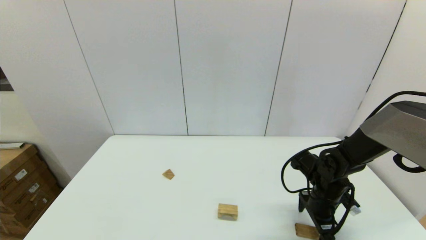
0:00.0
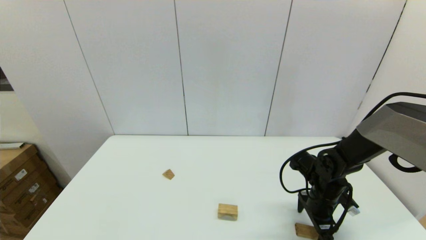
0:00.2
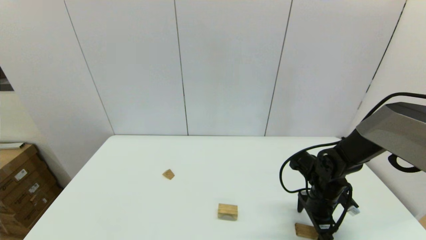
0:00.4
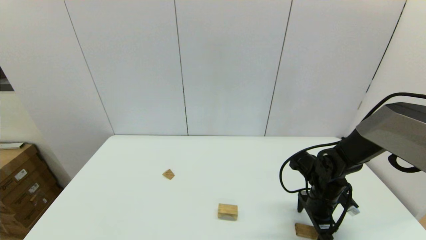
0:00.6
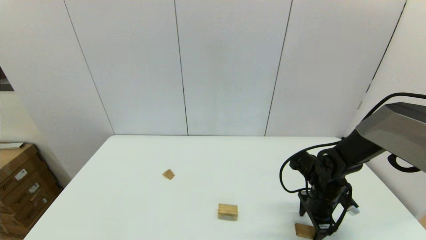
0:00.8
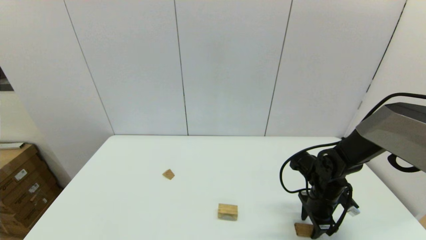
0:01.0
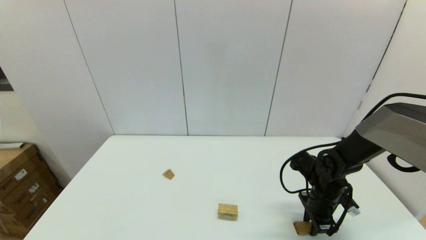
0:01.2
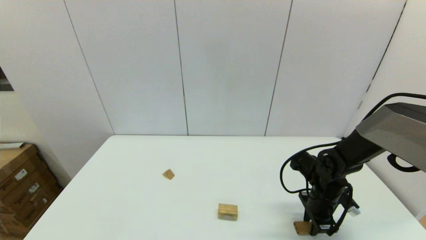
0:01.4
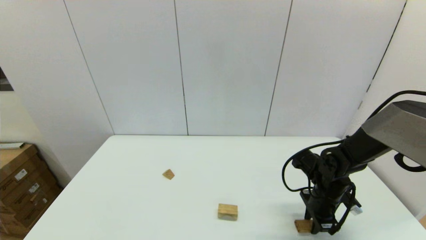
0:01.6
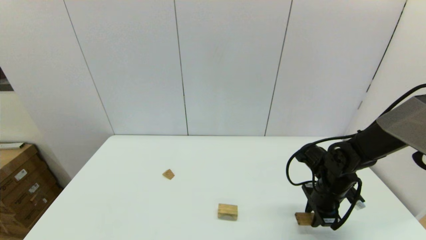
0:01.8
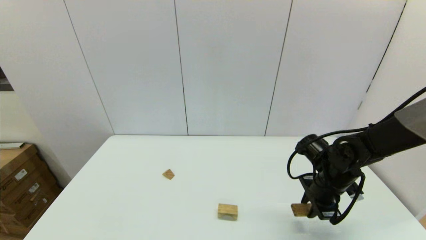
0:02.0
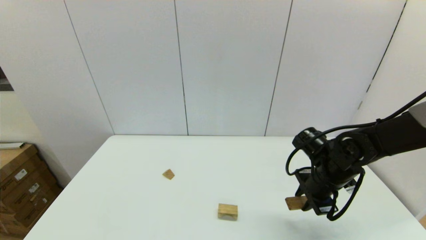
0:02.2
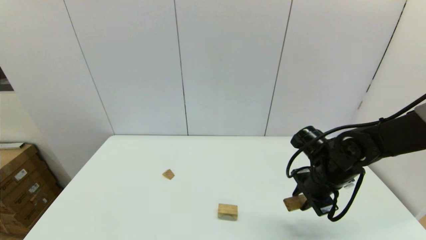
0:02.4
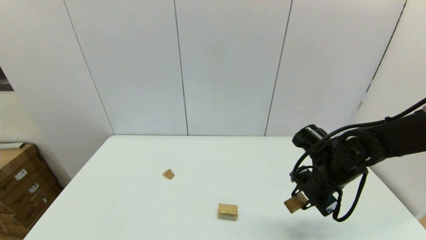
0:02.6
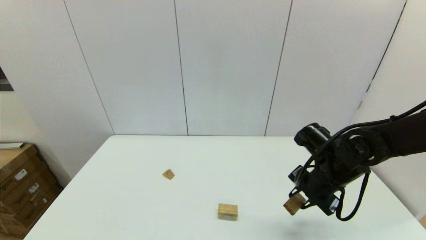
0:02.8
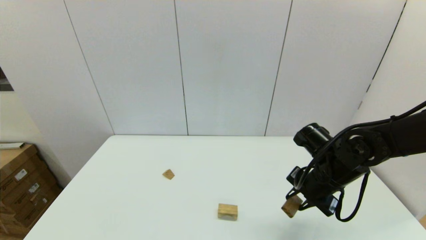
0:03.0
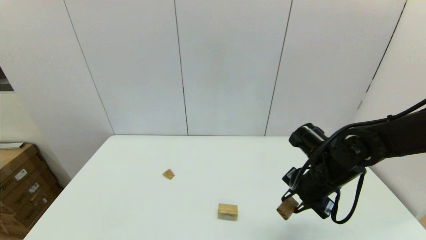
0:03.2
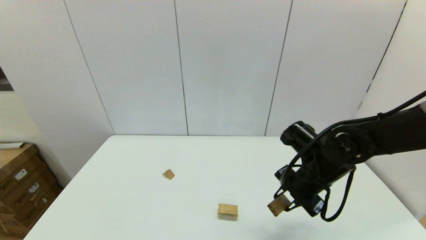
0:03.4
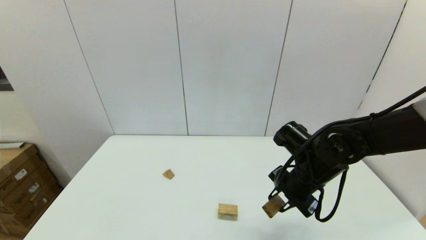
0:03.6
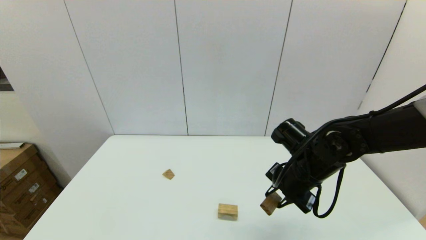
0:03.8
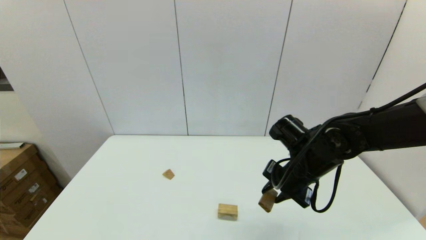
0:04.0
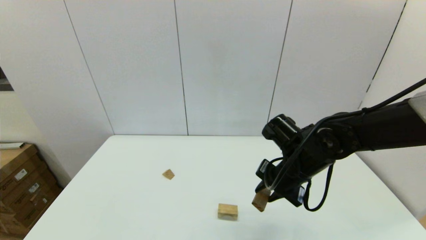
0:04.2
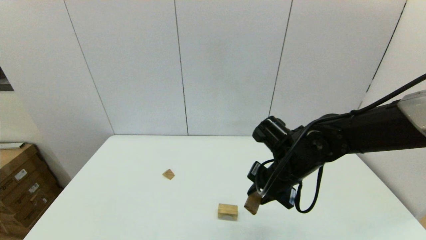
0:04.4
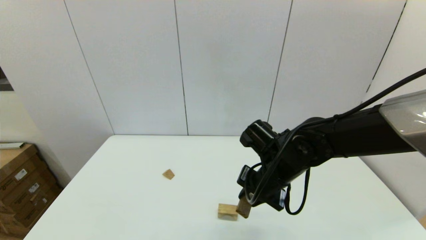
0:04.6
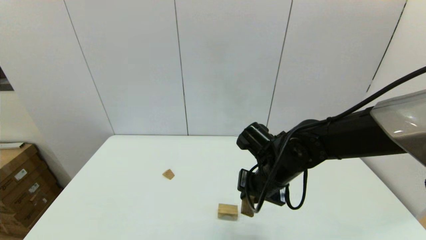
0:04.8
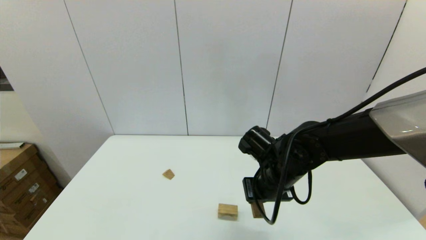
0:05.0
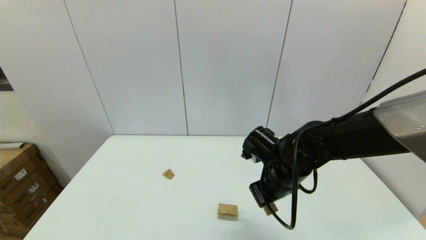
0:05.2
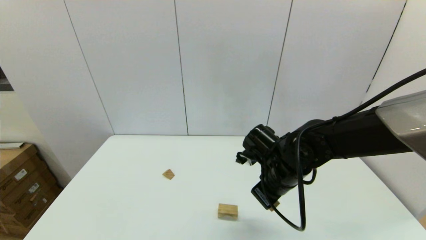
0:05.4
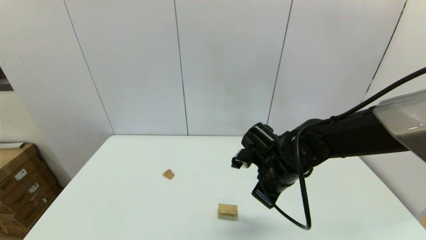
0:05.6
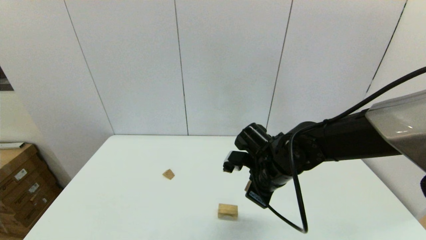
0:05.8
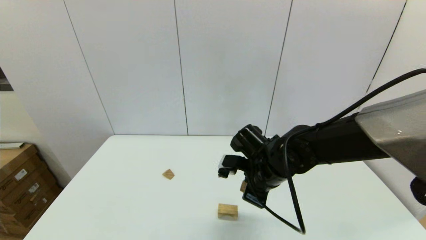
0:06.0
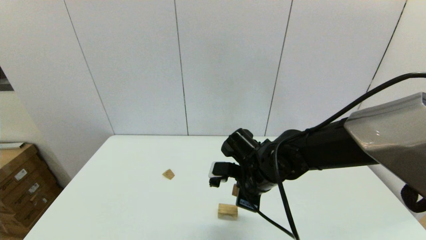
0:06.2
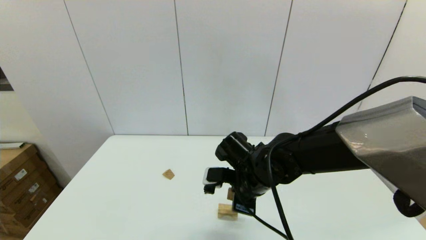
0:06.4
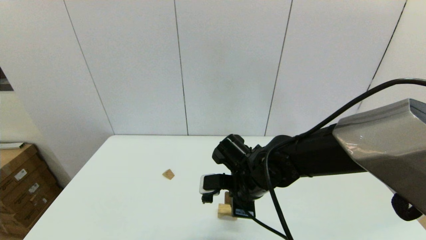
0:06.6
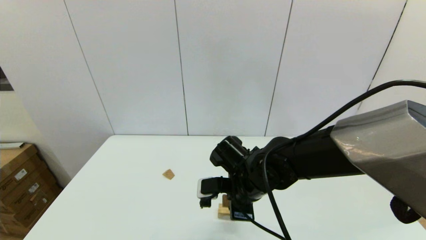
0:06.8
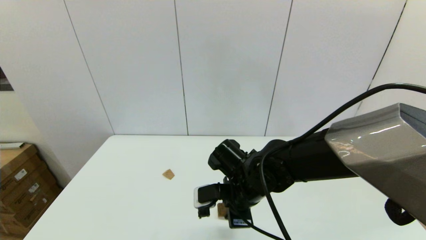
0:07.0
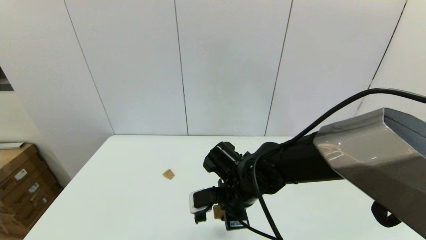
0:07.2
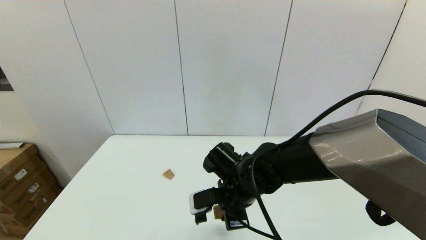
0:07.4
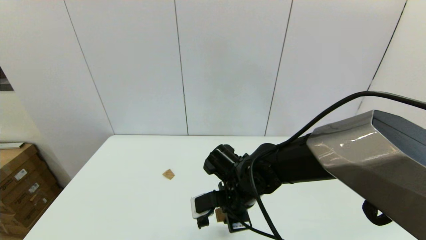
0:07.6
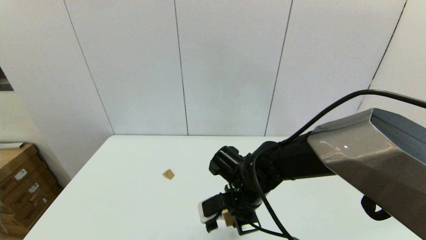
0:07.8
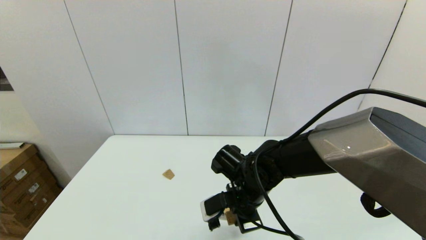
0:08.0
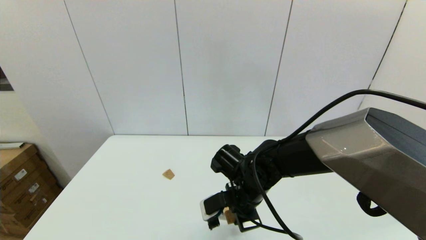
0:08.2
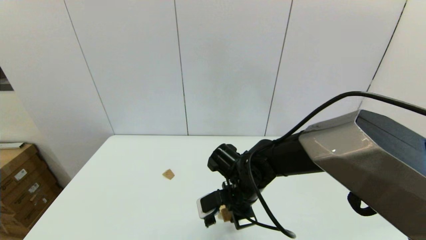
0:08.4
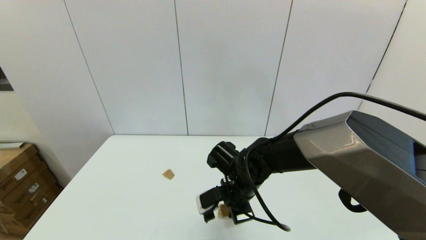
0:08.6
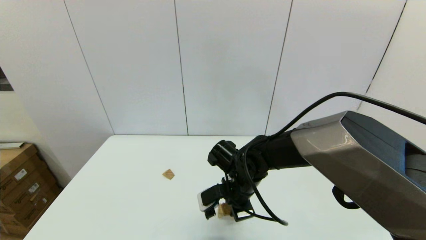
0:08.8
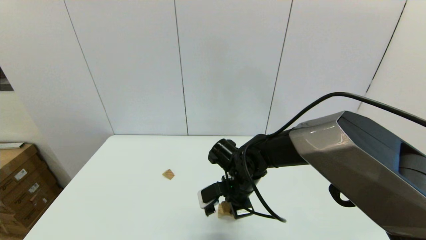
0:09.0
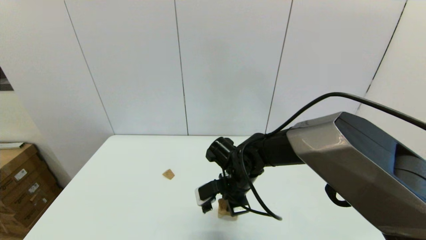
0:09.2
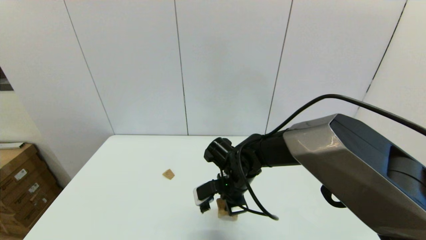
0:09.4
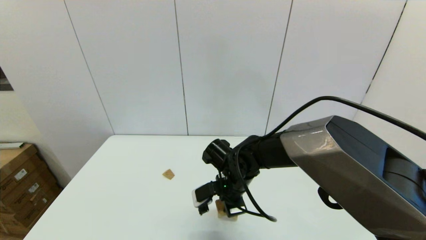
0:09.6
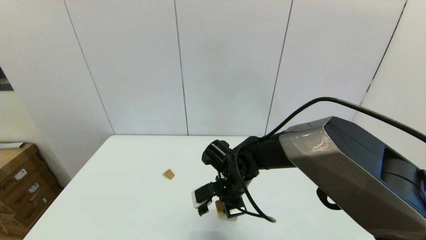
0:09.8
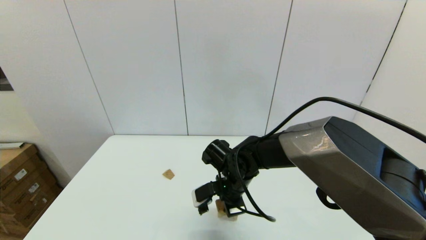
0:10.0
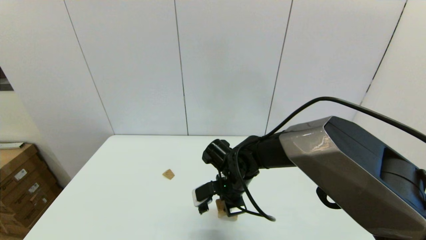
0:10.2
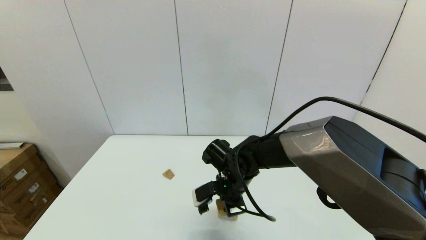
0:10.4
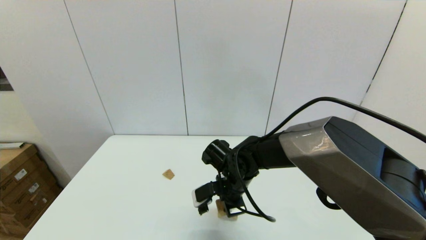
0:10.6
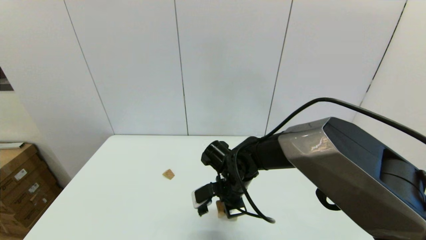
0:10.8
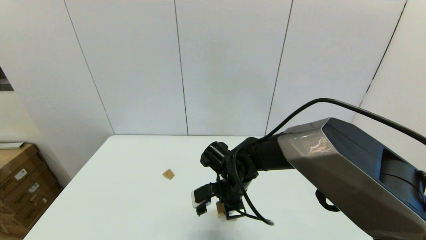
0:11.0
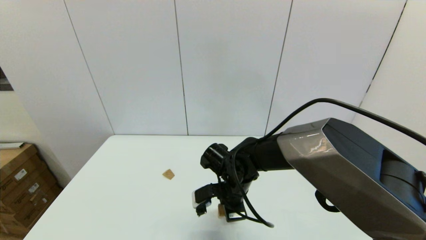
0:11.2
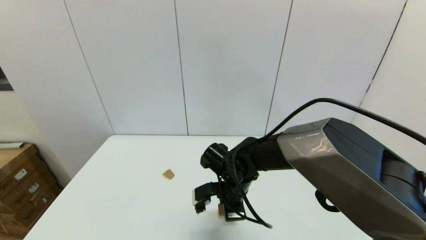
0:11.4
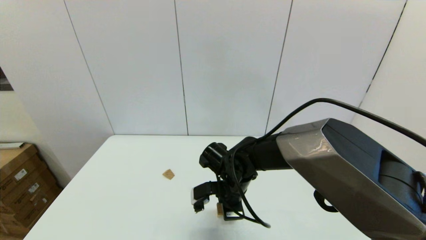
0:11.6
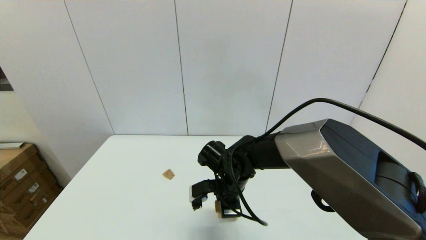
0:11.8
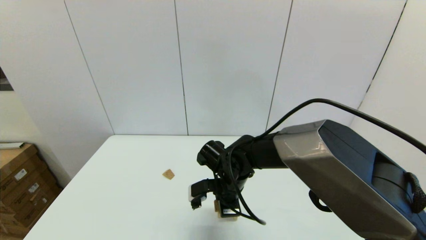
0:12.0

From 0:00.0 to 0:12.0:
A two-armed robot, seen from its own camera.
Task of the whole recording: place the arched building blocks in the center of the table, set up the rectangular building blocks, and then set up the triangular building blocks.
From 0:00.0 to 0:01.6: The right gripper closes its fingers.
From 0:01.6 to 0:03.0: The right gripper shifts roughly 10 cm upward.
From 0:03.0 to 0:04.4: The right gripper goes some 10 cm to the left.
From 0:06.0 to 0:07.6: The right gripper travels to the left by approximately 5 cm.
From 0:07.6 to 0:12.0: The grippers move only a little.

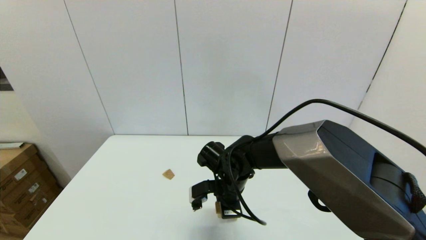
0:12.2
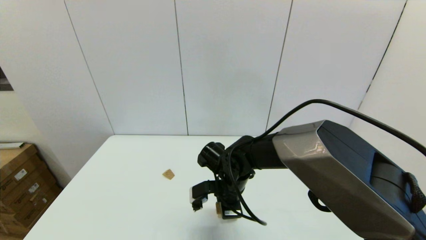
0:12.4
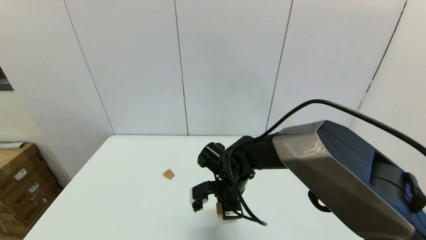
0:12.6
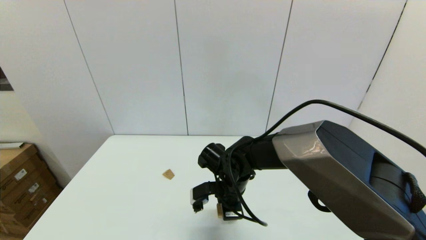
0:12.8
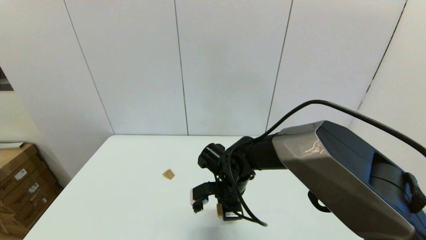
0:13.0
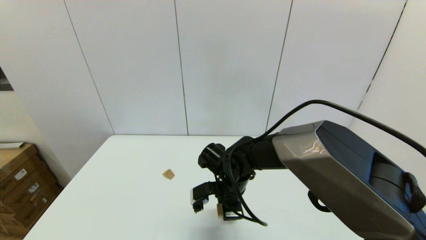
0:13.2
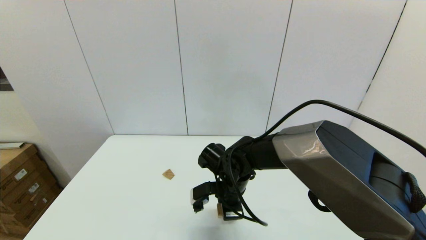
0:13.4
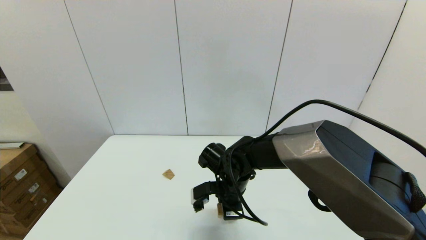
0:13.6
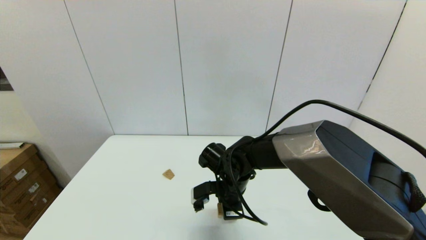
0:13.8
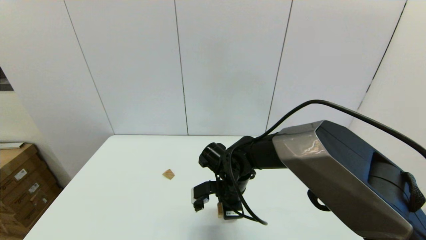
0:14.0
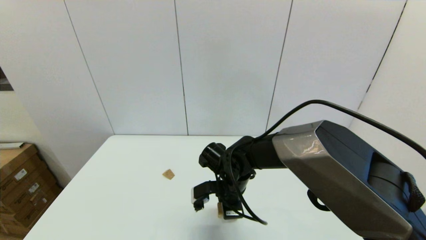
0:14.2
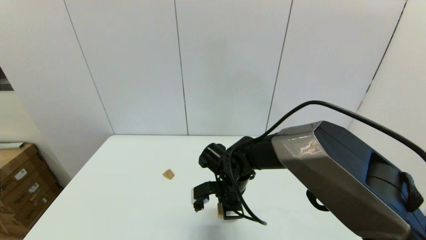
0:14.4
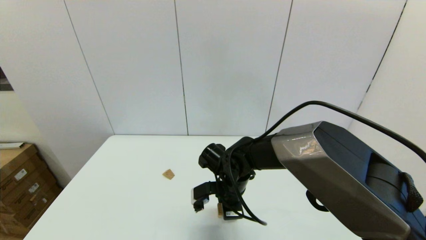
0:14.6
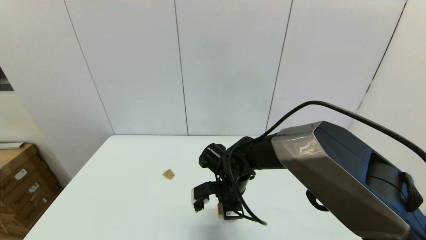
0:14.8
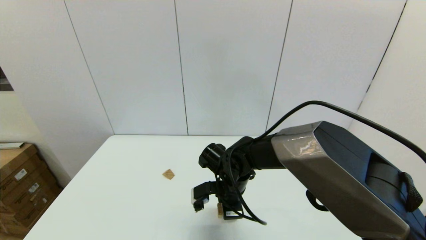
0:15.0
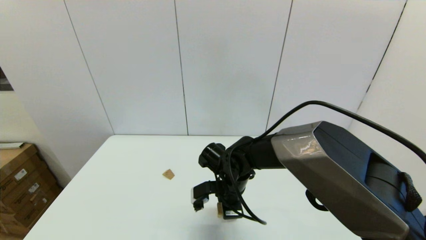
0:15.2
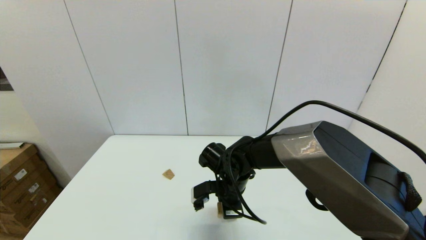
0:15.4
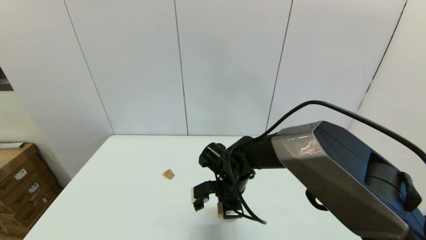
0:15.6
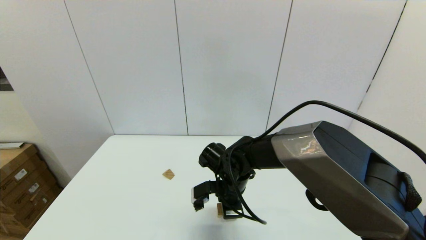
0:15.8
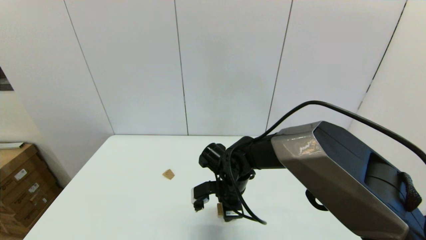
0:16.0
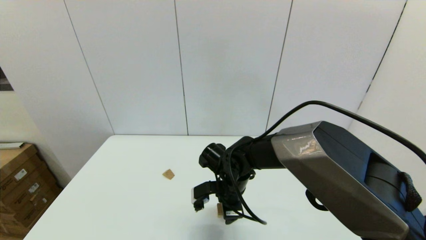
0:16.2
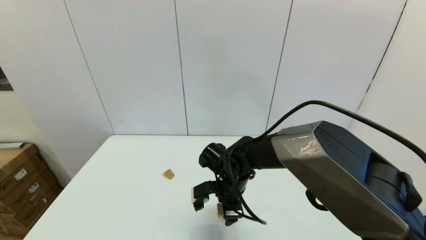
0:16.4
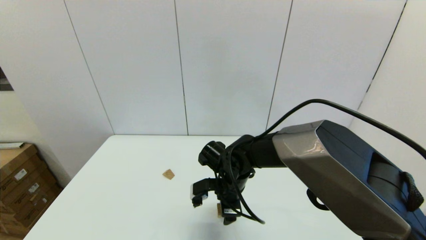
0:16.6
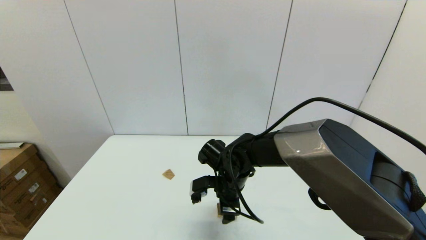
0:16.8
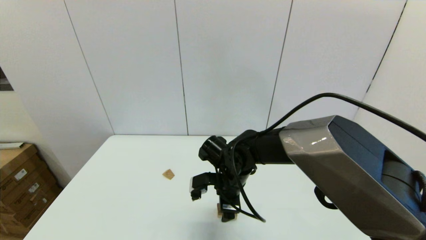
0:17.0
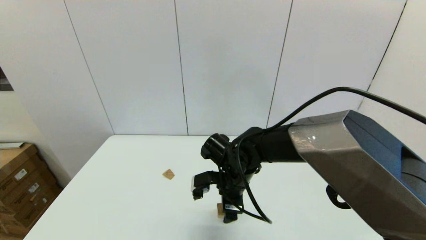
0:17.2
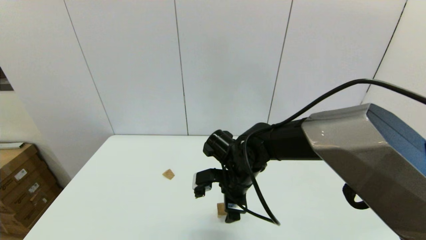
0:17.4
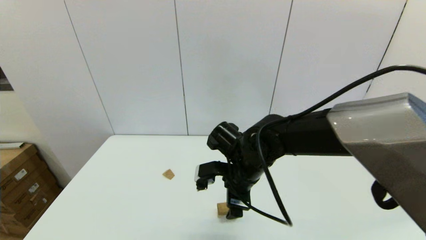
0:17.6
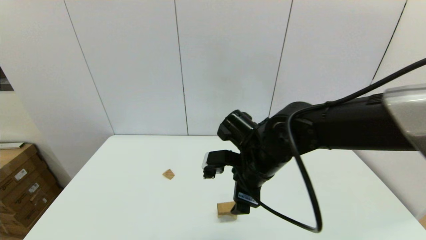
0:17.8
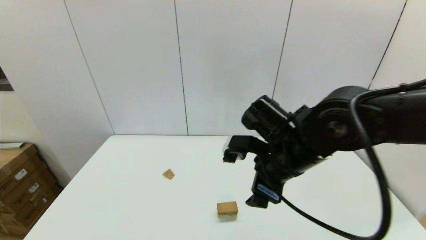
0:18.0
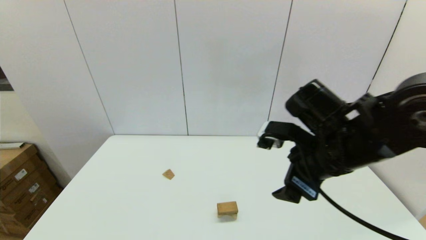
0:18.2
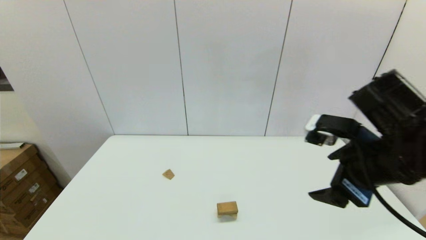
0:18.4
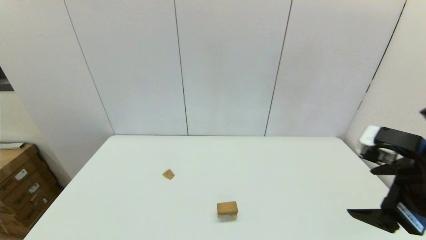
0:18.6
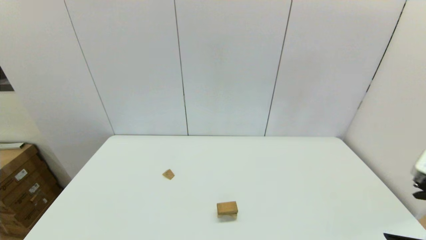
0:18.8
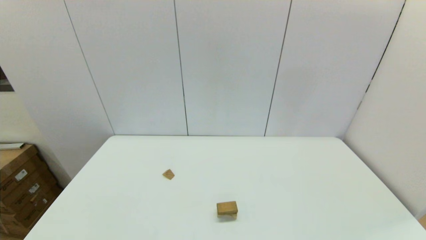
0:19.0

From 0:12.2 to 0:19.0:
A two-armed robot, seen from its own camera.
Task of the whole recording: place the arched building blocks in the center of the table, set up the rectangular building blocks, and then set up the triangular building blocks.
Step, from 0:12.2 to 0:16.4: Place the box-shaped block onto the arch-shaped block with the right gripper.
From 0:12.2 to 0:15.0: Neither gripper changes place.
From 0:16.2 to 0:17.6: The right gripper is displaced upward by approximately 10 cm.
From 0:17.6 to 0:19.0: The right gripper heads to the right and backward, covering roughly 35 cm.
